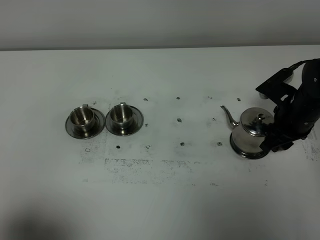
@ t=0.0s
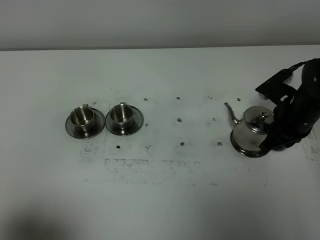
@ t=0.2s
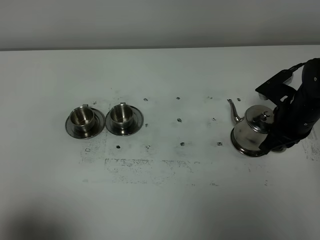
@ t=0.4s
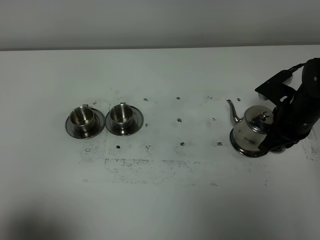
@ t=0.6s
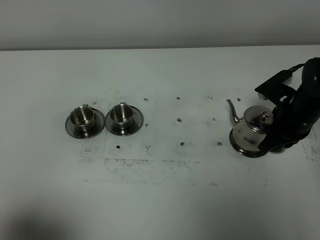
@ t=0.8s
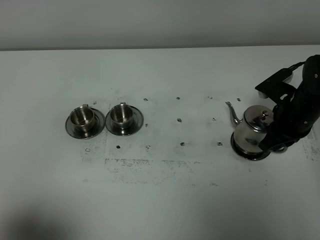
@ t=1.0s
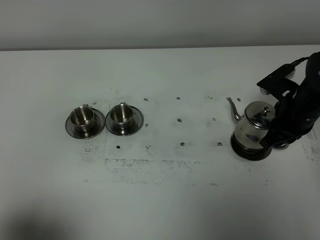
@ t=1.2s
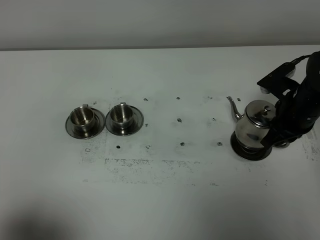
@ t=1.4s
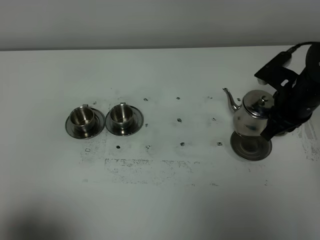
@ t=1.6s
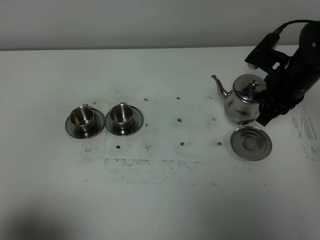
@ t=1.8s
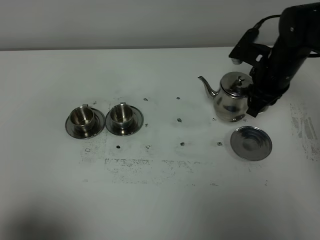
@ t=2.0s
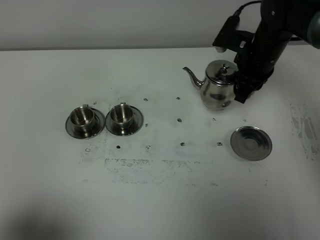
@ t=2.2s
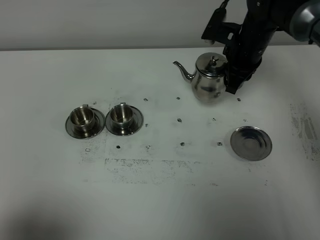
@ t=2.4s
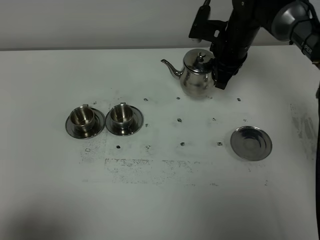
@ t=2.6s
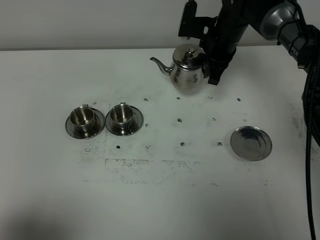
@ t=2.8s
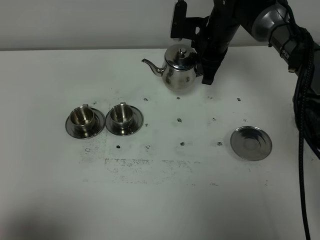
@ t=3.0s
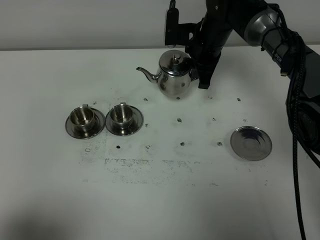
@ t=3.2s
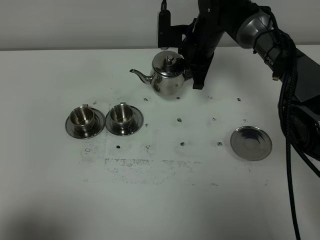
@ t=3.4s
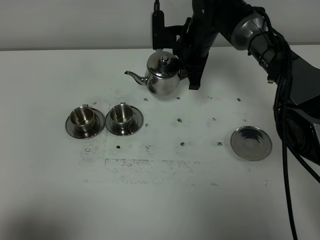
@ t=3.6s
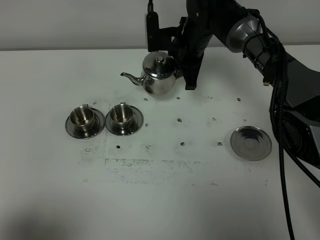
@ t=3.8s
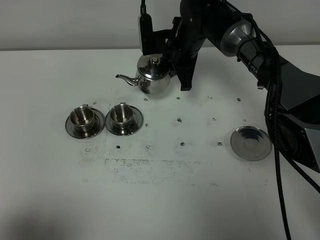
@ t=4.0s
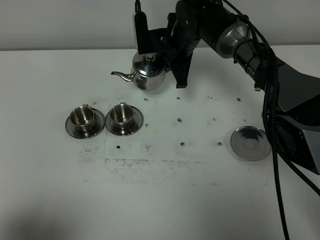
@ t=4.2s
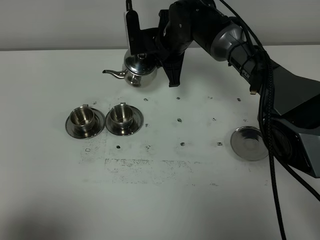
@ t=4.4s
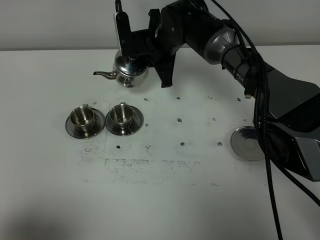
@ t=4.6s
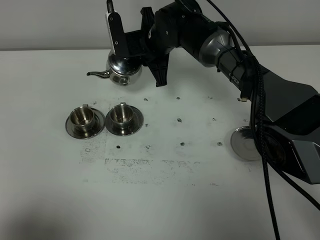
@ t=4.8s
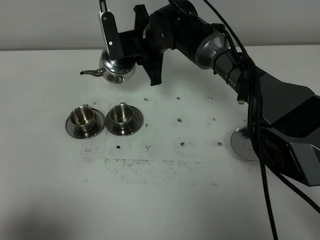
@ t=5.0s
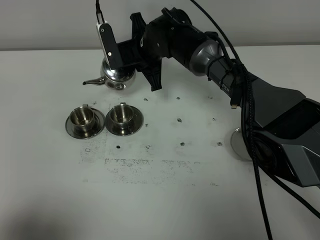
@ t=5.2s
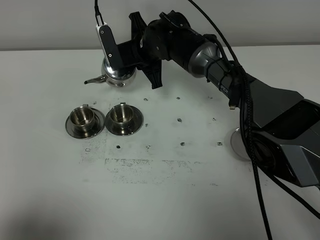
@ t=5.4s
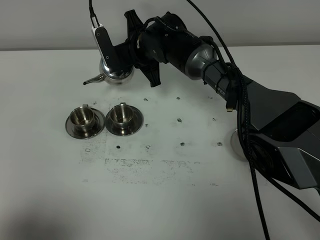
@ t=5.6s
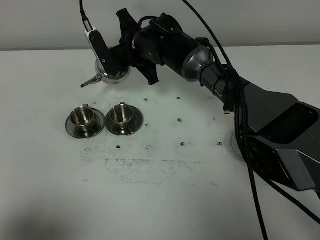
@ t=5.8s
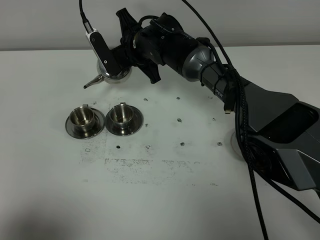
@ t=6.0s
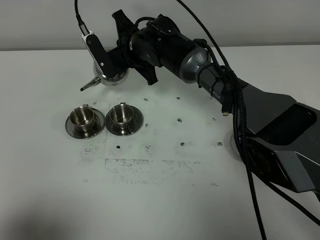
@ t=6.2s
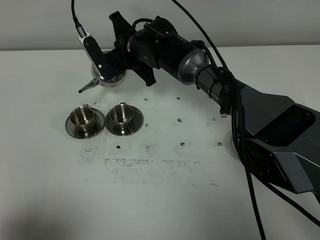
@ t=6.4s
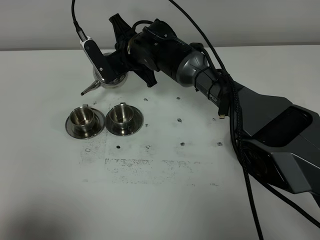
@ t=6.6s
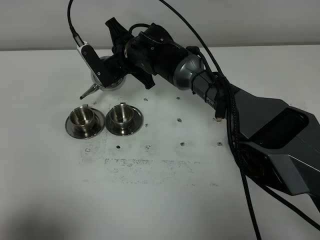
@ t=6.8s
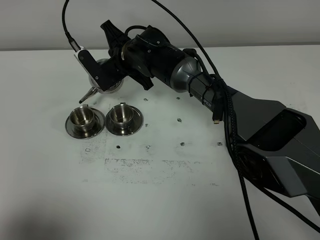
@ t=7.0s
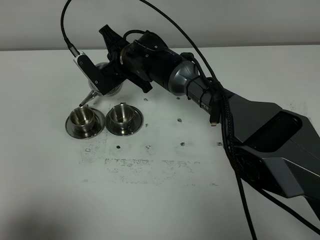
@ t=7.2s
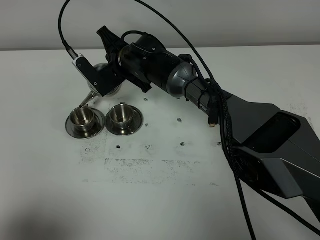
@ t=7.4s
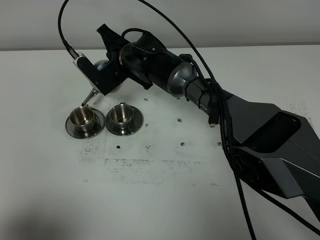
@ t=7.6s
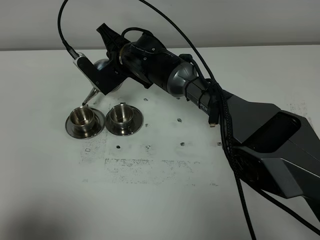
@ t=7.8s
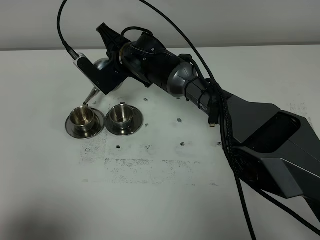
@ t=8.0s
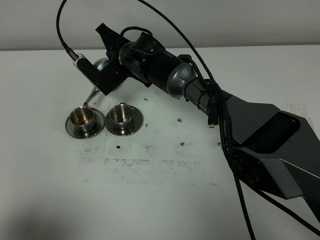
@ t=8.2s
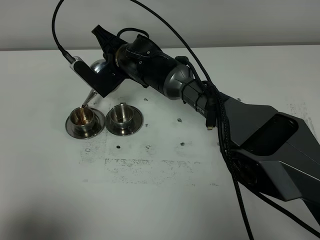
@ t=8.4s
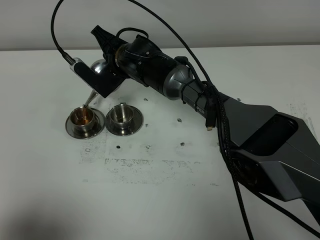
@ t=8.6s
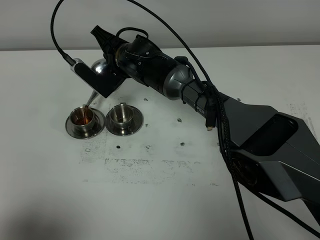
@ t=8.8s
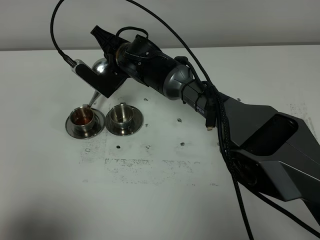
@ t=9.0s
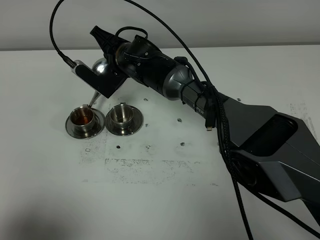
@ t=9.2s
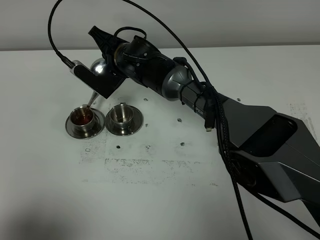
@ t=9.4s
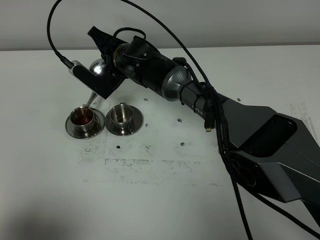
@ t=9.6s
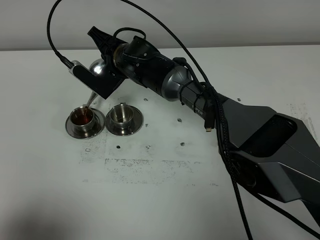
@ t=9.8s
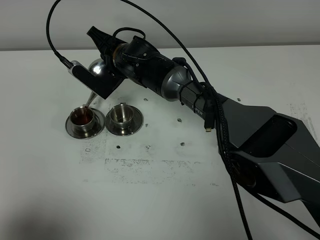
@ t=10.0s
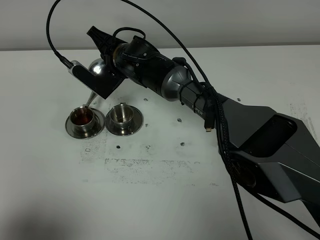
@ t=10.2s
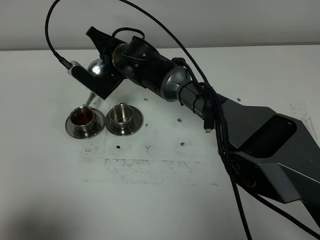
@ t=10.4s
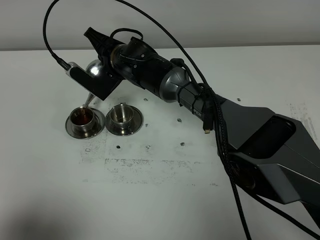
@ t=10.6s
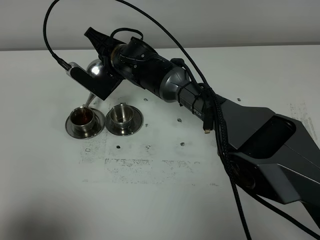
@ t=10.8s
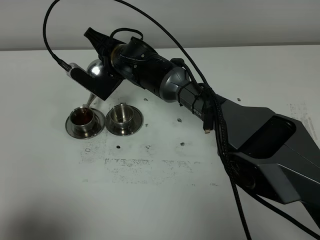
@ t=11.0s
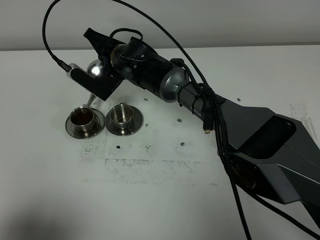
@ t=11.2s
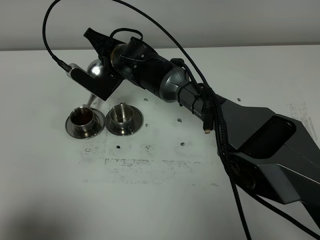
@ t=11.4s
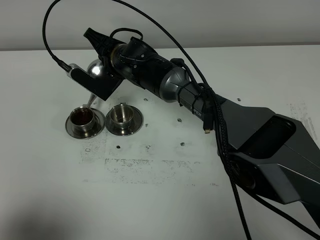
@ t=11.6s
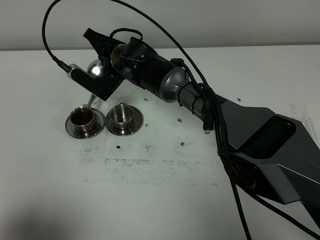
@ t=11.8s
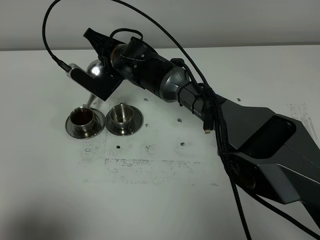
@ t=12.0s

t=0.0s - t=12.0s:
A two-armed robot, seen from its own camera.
Task of the whole recording: grasp the stainless steel teapot and pour the tea into the two stainless steel teacups one by one, put the stainless steel teapot back in its original place.
t=0.0s - t=1.6s: The right gripper closes.
t=1.6s - t=3.0s: The right gripper travels forward and to the left by approximately 20 cm.
t=3.0s - t=4.4s: The right gripper travels to the left by about 10 cm.
t=4.4s - t=6.0s: The right gripper shifts roughly 5 cm to the left.
t=7.6s - t=9.0s: There are only small adjustments of the grippers.
t=9.0s - t=12.0s: The two grippers keep their place.

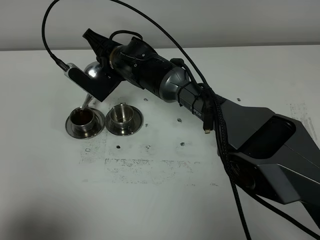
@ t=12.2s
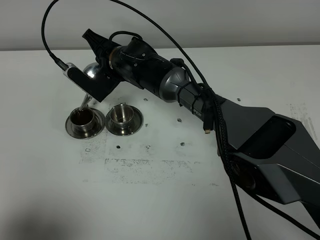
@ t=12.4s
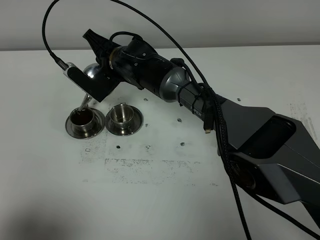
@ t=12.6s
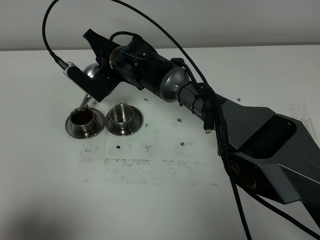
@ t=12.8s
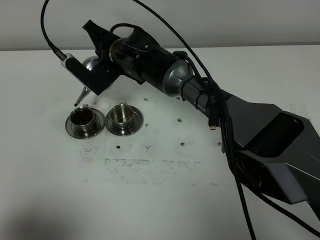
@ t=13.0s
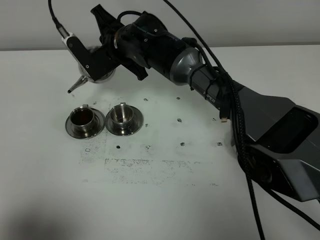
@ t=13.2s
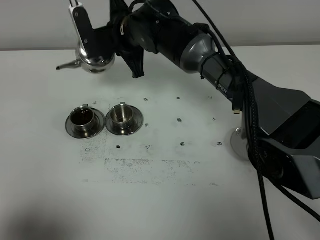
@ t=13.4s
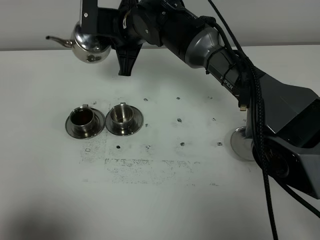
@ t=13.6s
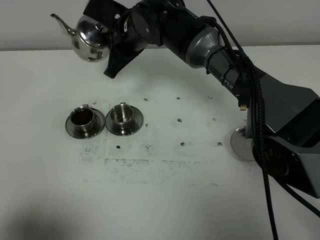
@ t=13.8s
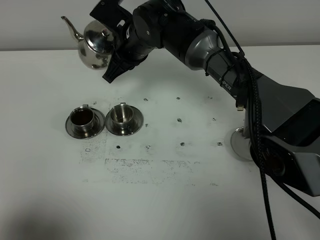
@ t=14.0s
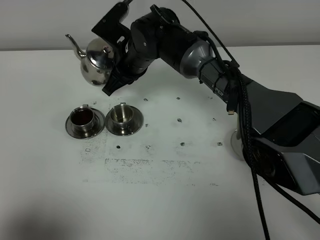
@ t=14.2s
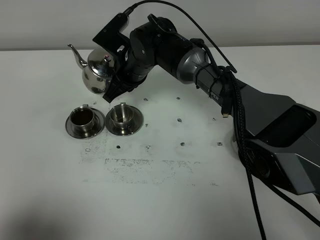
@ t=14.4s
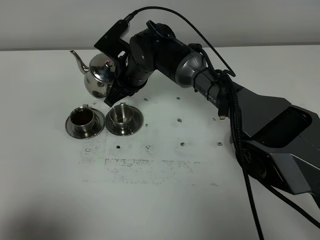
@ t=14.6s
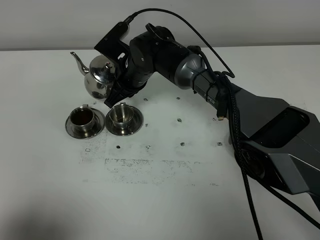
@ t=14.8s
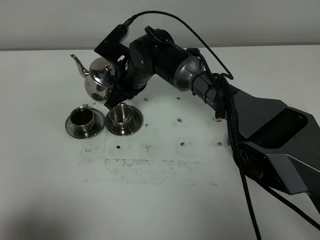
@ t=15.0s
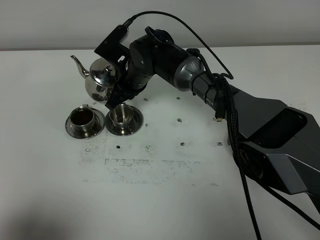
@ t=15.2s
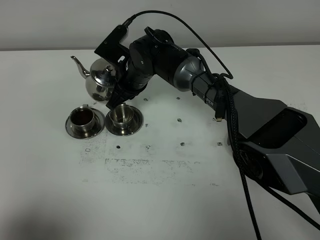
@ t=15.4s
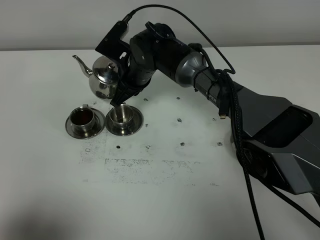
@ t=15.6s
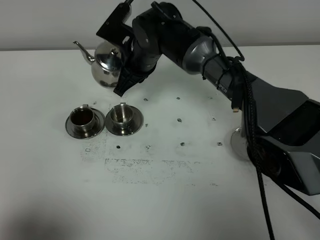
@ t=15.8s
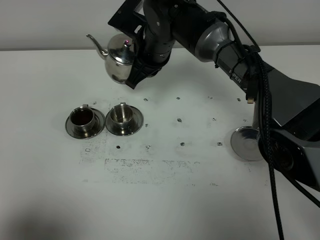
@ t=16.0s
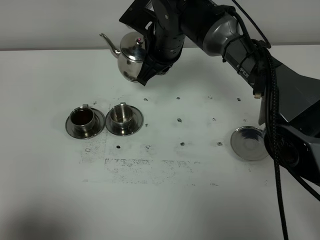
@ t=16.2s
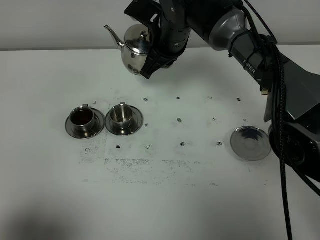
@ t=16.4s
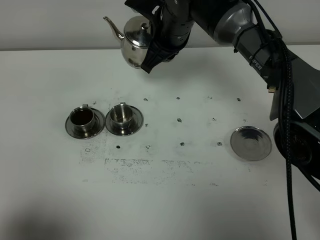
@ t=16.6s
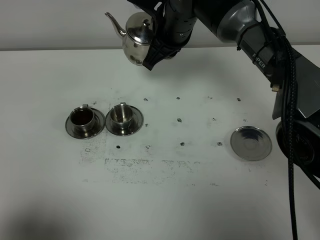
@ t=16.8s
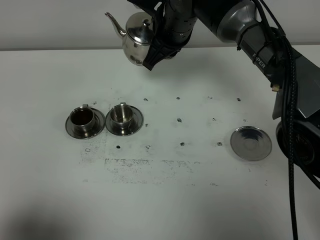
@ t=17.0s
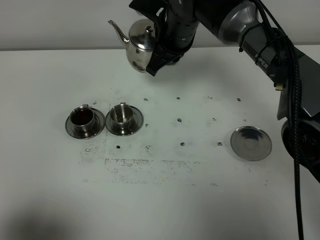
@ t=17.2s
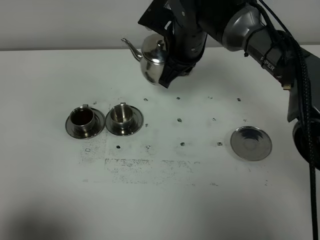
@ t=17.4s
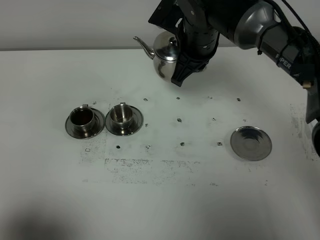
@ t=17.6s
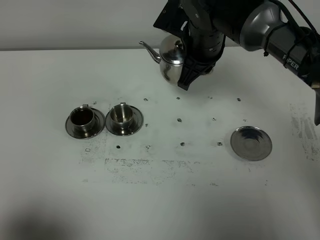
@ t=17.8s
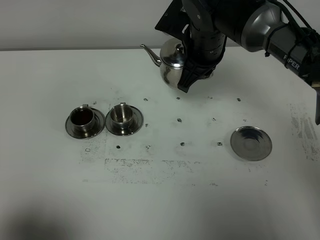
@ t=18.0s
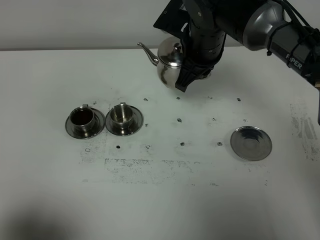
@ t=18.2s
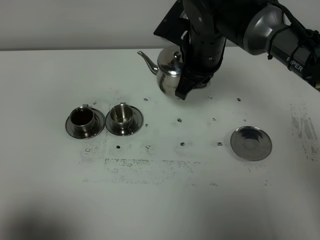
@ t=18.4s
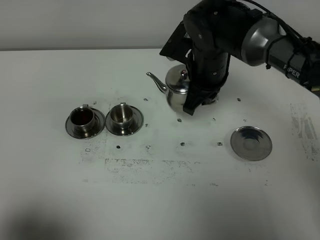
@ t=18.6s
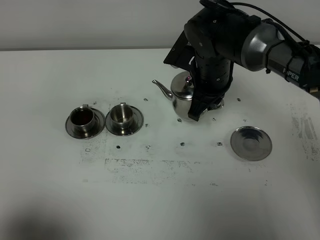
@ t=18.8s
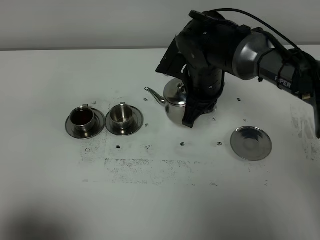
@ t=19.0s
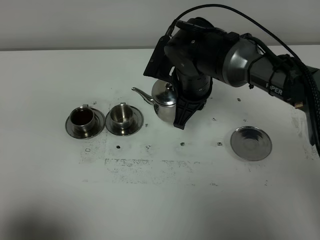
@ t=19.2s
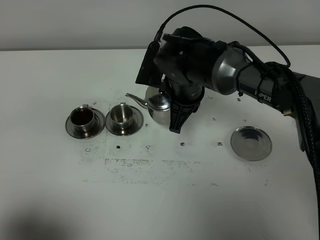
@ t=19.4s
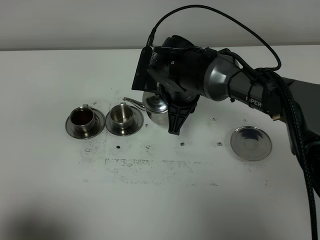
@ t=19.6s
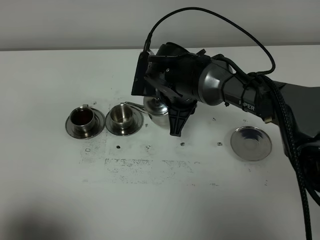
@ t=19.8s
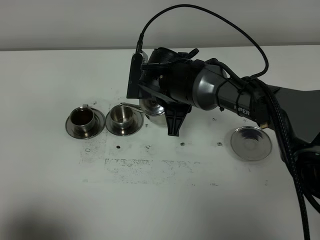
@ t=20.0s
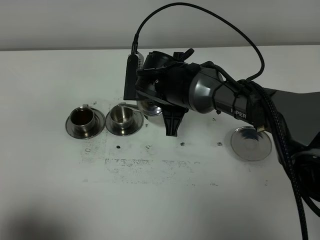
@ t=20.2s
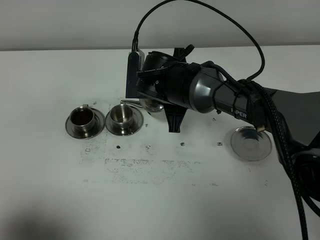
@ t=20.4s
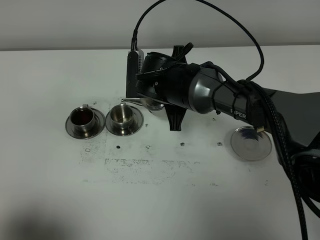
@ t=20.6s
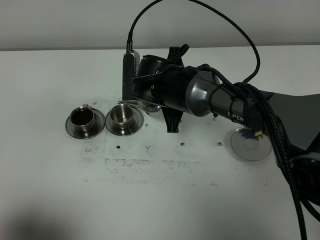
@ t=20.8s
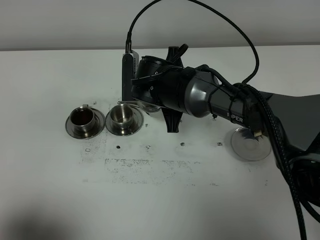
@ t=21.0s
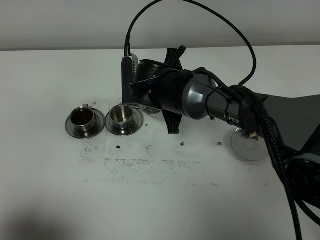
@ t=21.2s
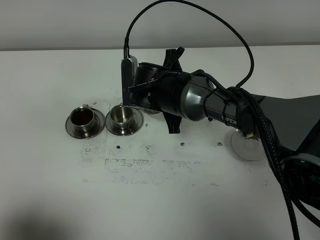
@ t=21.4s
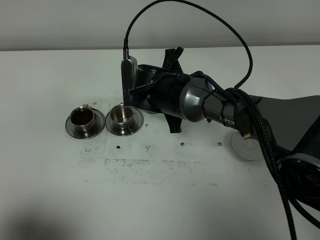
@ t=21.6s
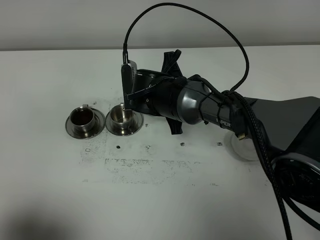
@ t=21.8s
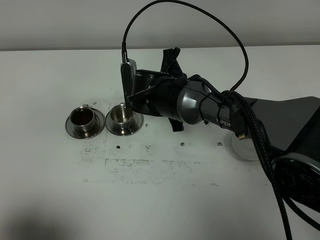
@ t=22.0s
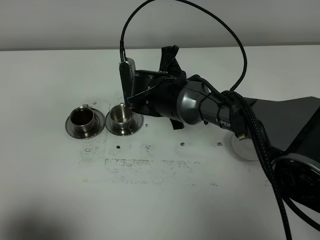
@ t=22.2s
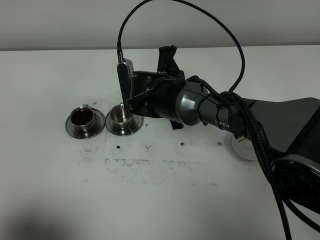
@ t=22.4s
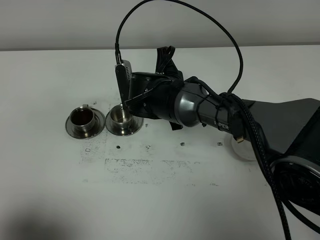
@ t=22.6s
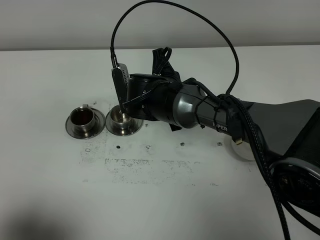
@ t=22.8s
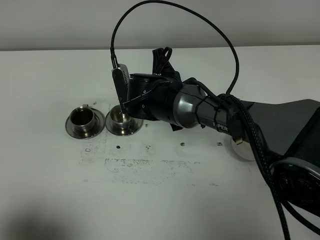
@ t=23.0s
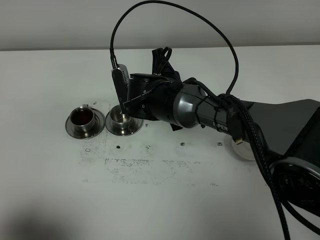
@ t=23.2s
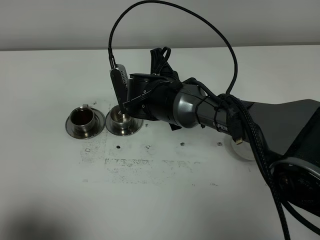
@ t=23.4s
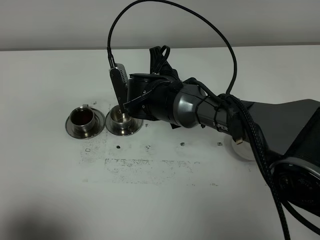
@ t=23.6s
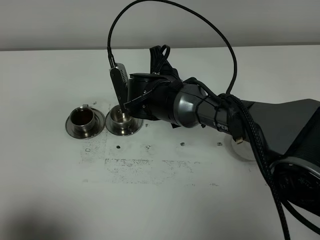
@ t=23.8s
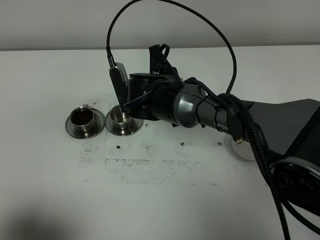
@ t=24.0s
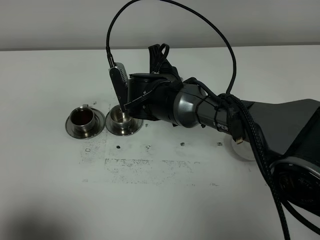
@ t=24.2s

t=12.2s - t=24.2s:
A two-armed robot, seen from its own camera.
Task of the whole recording: grasp the stainless steel teapot and pour the tea into the two stainless steel teacups one by one, put the stainless steel teapot back in its original place.
t=12.2s - t=13.8s: The right gripper travels upward by roughly 10 cm.
t=13.8s - t=15.2s: The right gripper is displaced downward by some 10 cm.
t=15.2s - t=16.6s: The right gripper shifts some 15 cm upward and to the right.
t=16.6s - t=18.2s: The right gripper shifts by roughly 5 cm.
t=18.2s - t=19.8s: The right gripper moves downward, roughly 10 cm.
t=19.8s - t=21.2s: The grippers move only a little.
t=21.2s - t=24.2s: The grippers move only a little.
